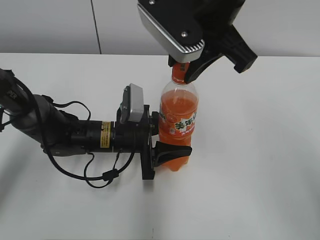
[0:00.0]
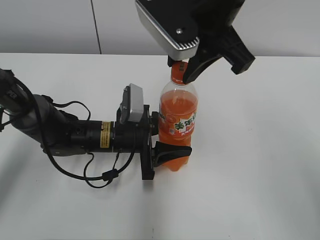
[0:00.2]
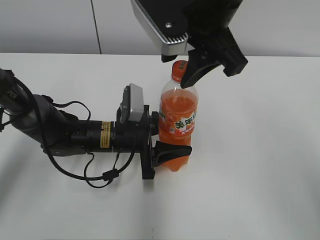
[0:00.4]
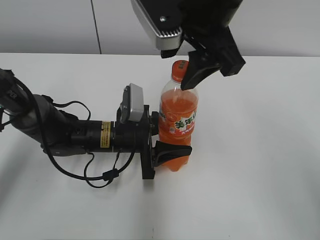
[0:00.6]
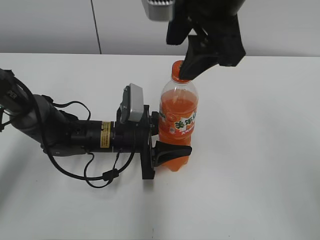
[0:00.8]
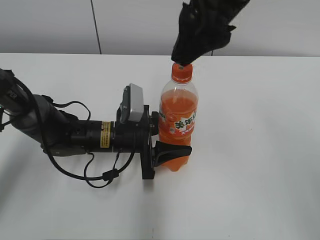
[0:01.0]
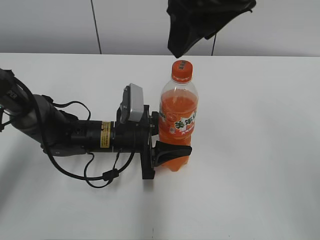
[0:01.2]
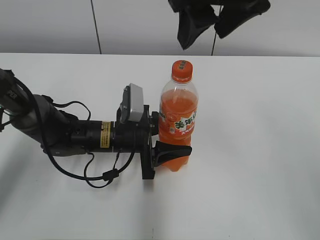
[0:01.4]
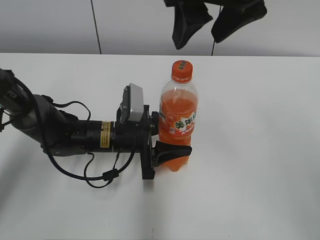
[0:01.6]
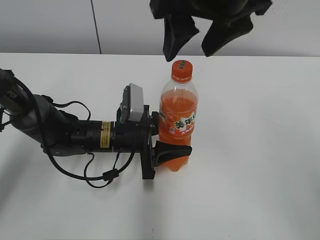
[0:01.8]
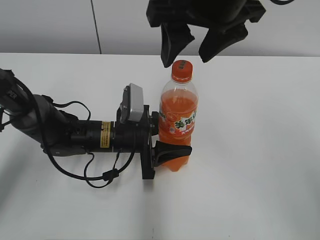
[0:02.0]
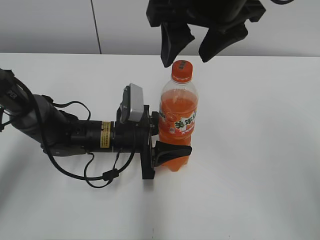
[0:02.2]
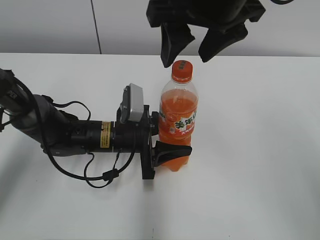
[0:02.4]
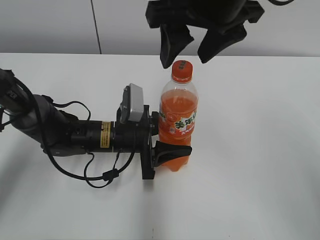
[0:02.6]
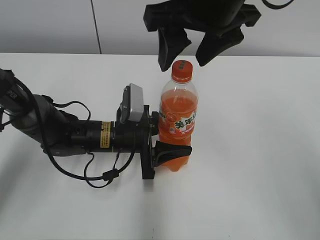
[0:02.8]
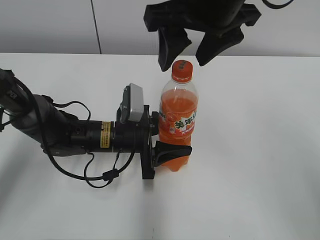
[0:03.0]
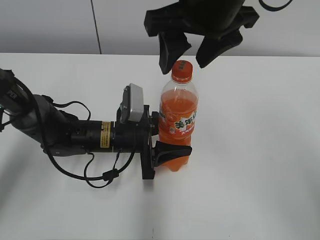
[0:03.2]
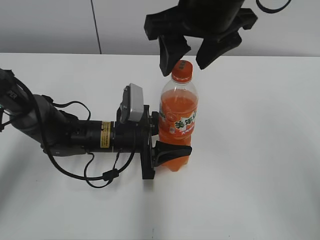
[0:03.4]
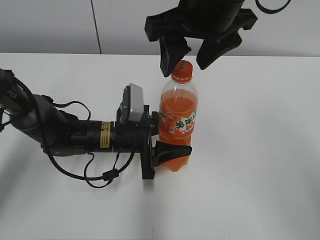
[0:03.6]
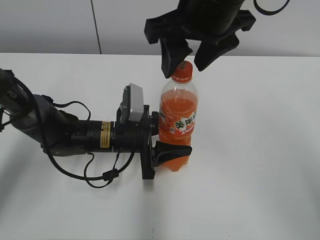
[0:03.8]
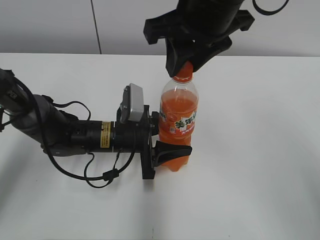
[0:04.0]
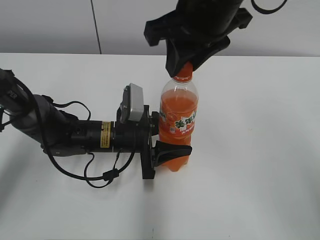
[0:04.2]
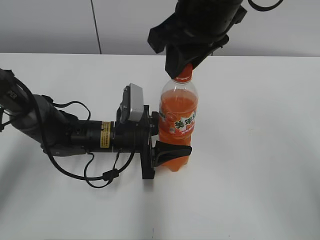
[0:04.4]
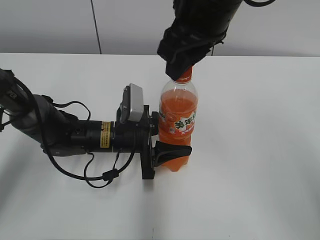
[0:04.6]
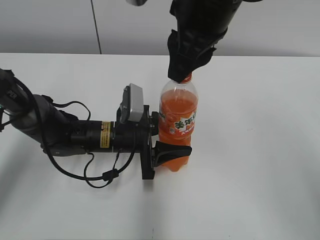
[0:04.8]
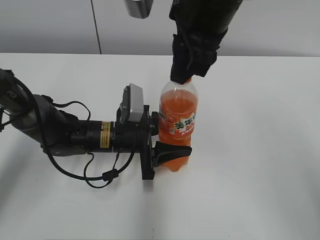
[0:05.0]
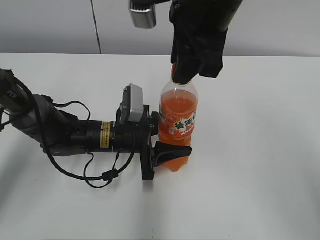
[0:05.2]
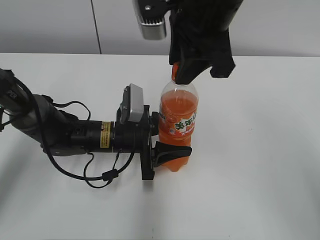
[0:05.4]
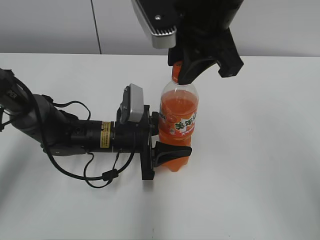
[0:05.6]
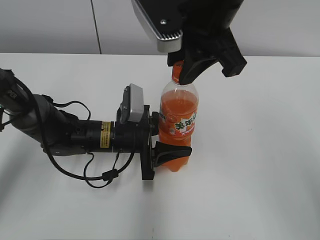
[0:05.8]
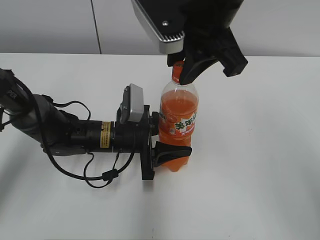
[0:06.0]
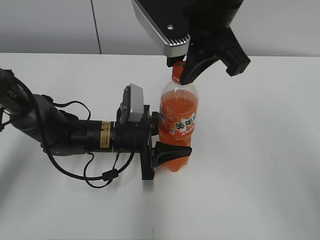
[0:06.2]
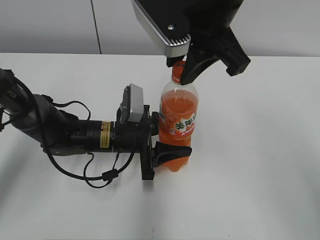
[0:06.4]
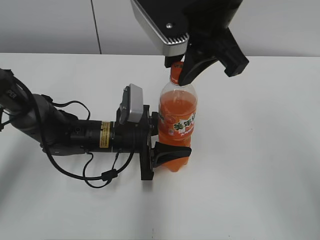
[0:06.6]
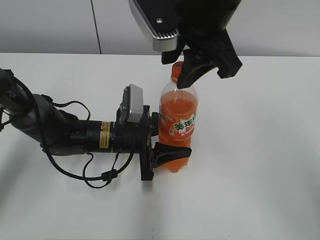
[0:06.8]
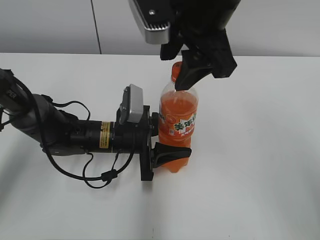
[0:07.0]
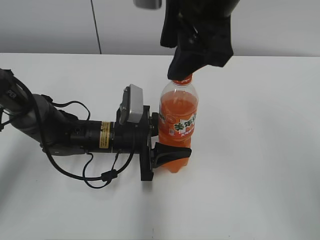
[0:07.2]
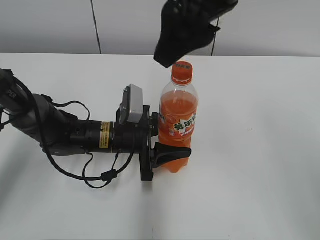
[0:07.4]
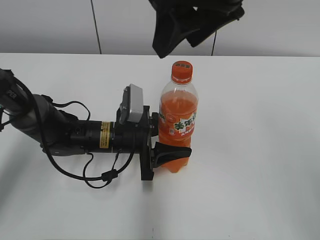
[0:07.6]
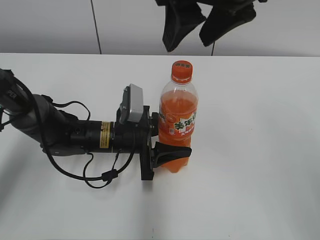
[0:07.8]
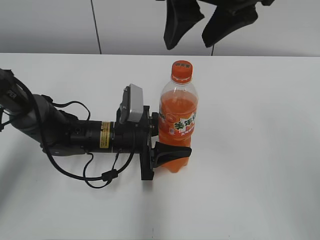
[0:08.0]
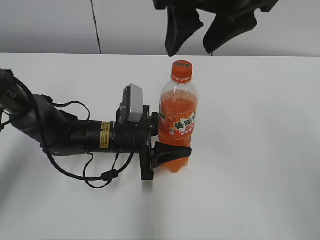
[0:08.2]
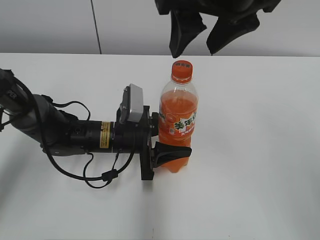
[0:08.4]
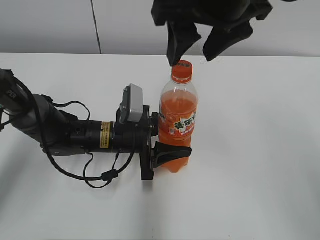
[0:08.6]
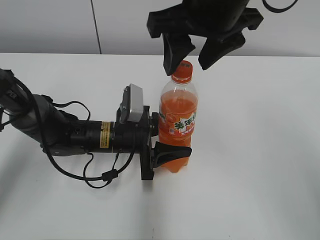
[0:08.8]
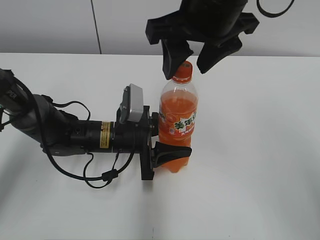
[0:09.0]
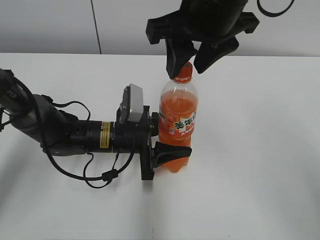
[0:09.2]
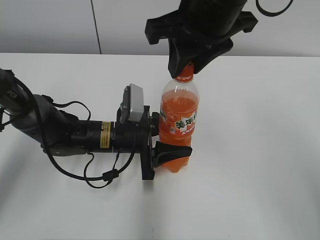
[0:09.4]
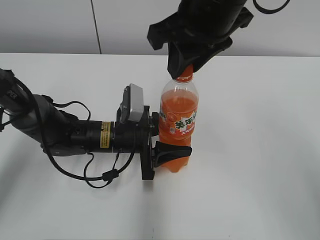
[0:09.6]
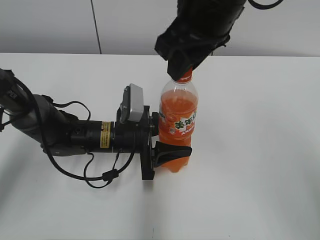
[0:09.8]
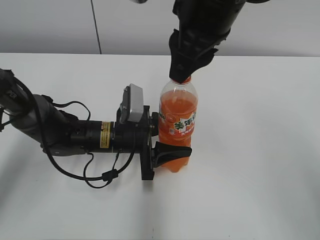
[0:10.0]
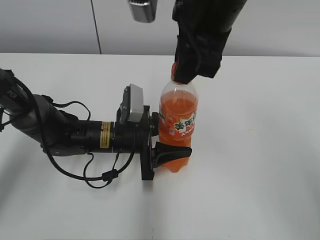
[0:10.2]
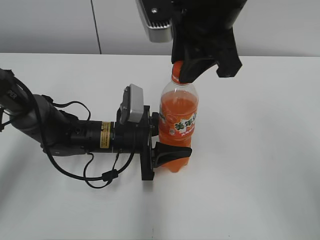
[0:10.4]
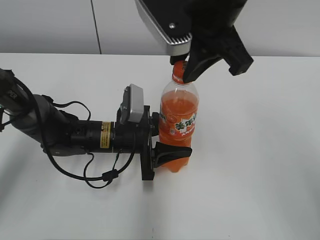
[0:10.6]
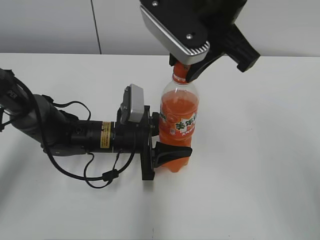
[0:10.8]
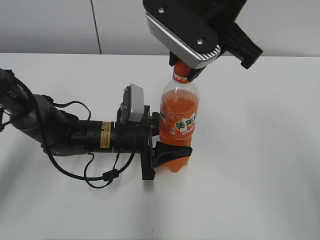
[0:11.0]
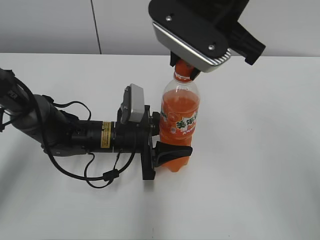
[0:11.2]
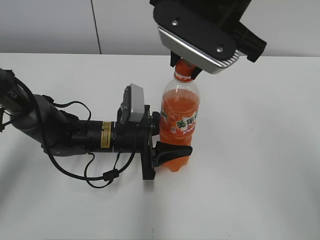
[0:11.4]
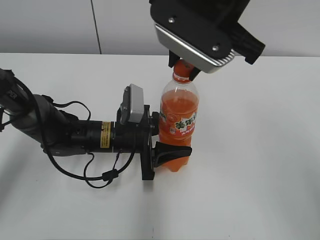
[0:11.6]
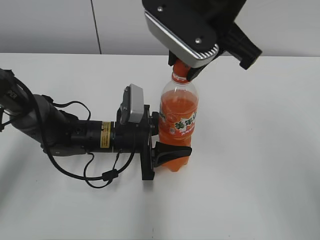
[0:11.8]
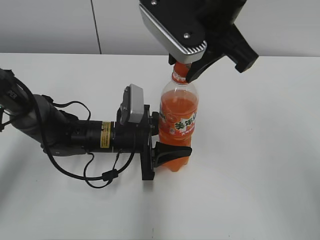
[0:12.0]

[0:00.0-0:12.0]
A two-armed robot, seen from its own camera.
0:00.0 to 0:01.6: The right gripper opens its fingers.
0:01.6 to 0:03.0: The grippers stay close to where they were, moving slightly.
0:03.0 to 0:04.4: The right gripper closes up.
0:06.0 to 0:07.6: The right gripper ends up roughly 5 cm from where it was, and opens its fingers.
0:07.6 to 0:09.0: The right gripper ends up roughly 5 cm from where it was.
0:09.0 to 0:10.4: The right gripper closes.

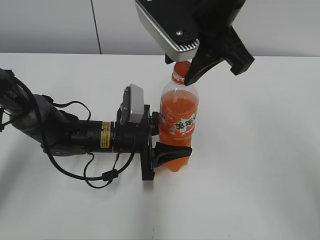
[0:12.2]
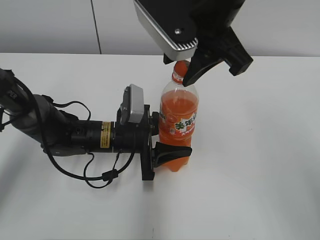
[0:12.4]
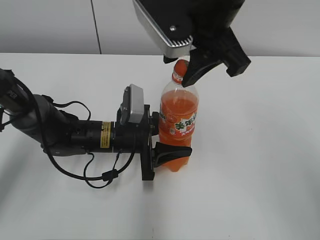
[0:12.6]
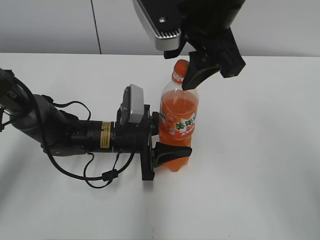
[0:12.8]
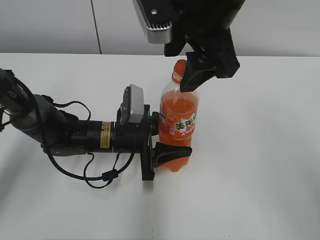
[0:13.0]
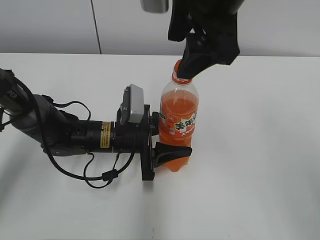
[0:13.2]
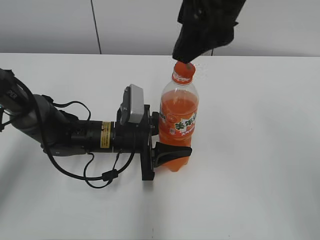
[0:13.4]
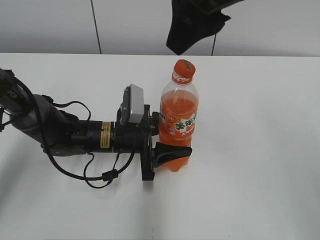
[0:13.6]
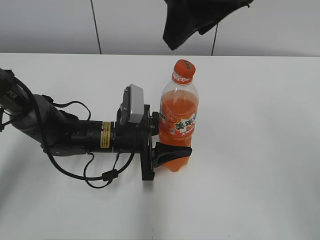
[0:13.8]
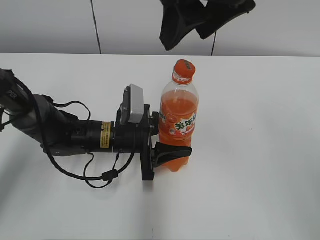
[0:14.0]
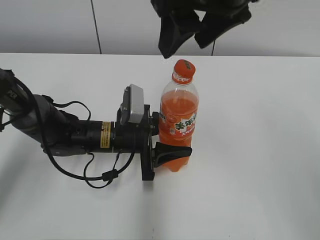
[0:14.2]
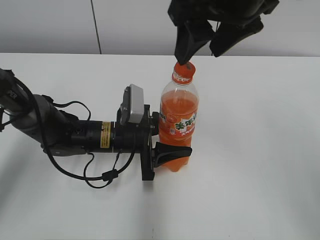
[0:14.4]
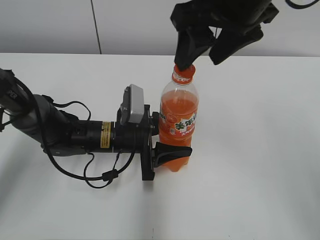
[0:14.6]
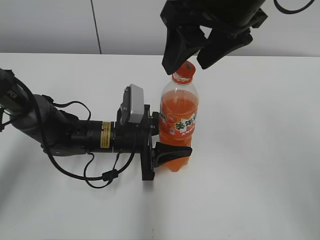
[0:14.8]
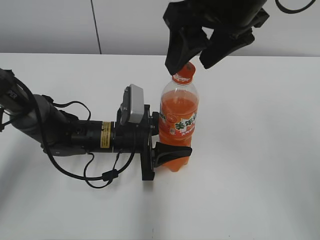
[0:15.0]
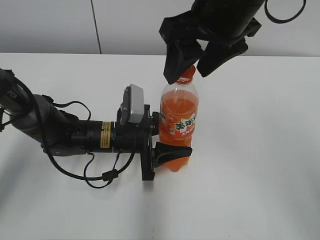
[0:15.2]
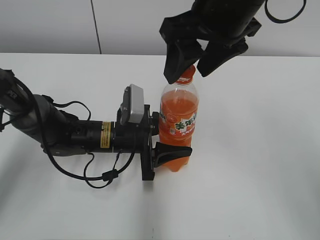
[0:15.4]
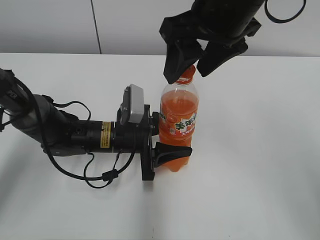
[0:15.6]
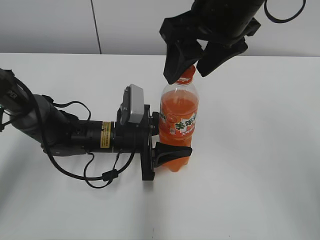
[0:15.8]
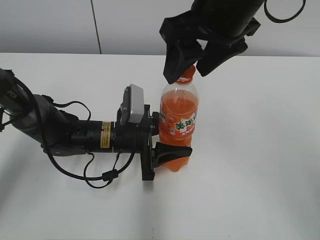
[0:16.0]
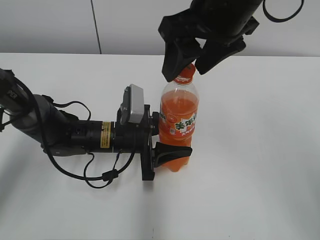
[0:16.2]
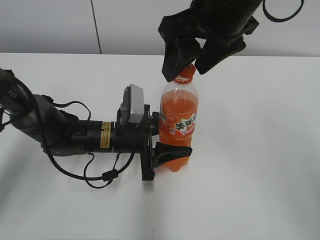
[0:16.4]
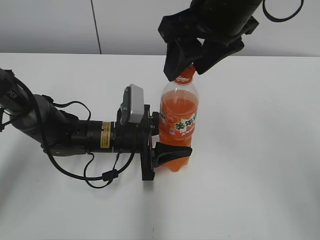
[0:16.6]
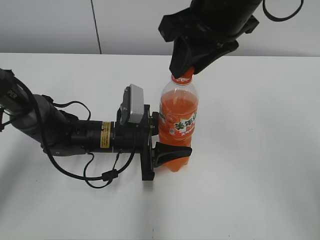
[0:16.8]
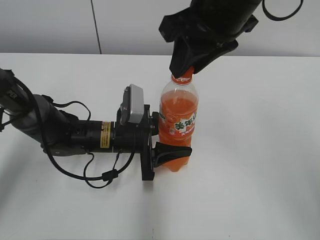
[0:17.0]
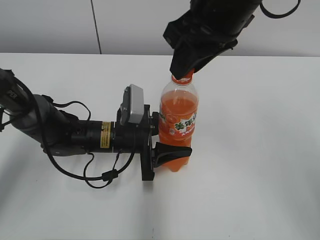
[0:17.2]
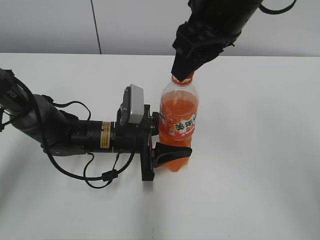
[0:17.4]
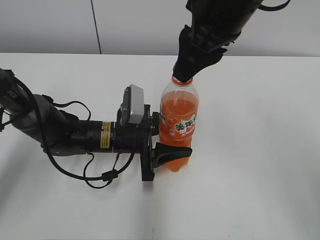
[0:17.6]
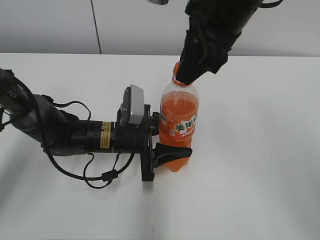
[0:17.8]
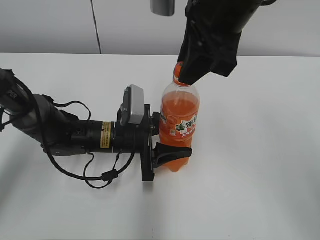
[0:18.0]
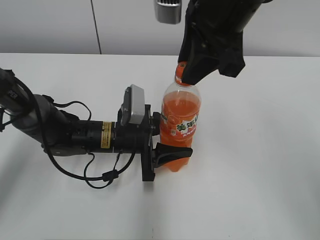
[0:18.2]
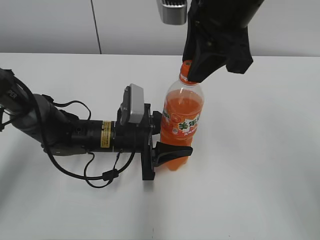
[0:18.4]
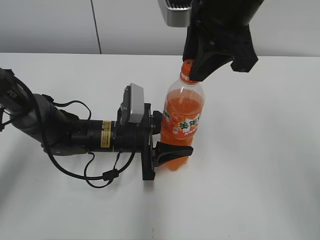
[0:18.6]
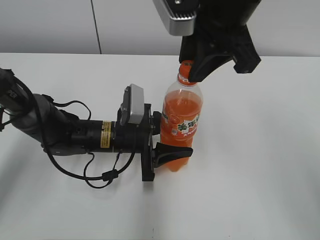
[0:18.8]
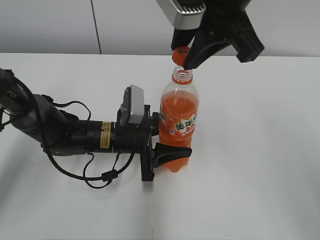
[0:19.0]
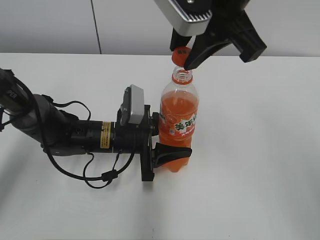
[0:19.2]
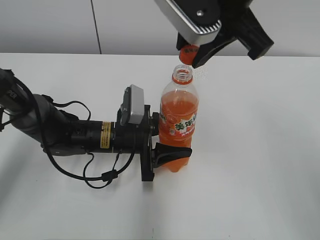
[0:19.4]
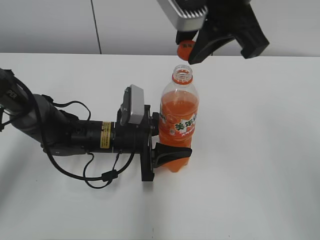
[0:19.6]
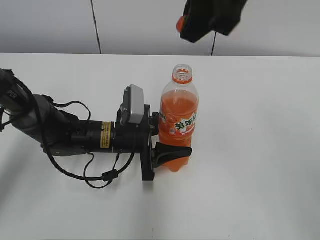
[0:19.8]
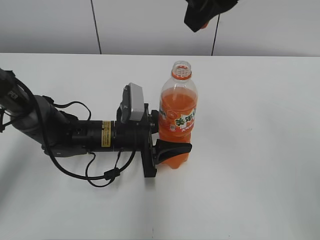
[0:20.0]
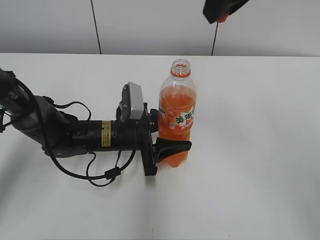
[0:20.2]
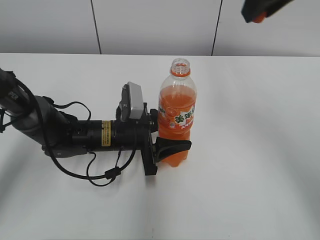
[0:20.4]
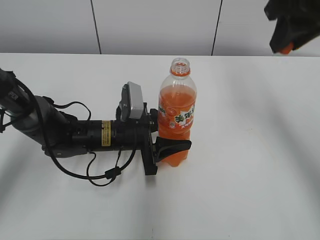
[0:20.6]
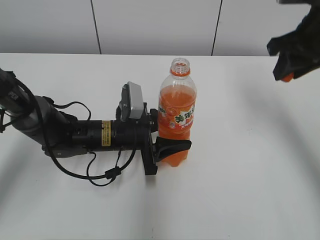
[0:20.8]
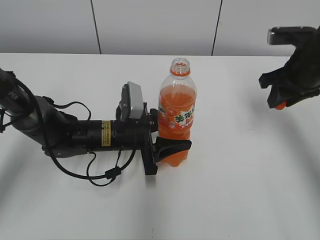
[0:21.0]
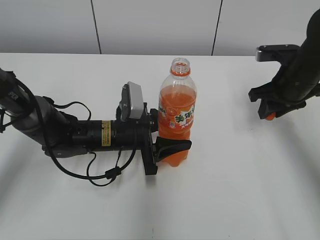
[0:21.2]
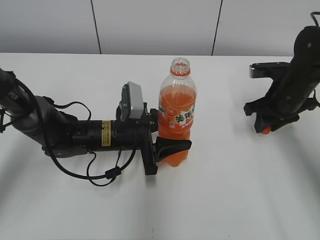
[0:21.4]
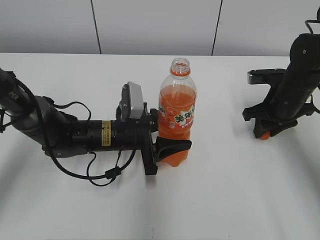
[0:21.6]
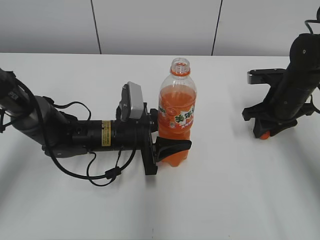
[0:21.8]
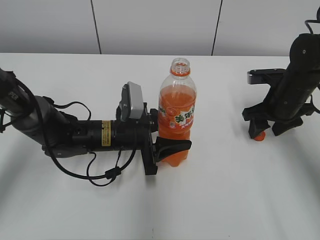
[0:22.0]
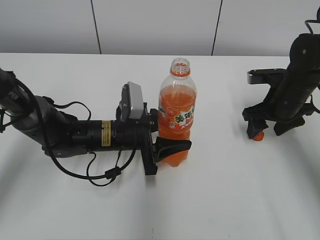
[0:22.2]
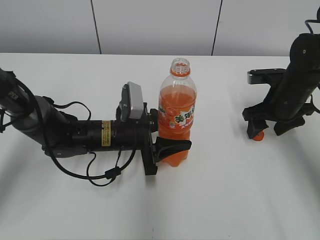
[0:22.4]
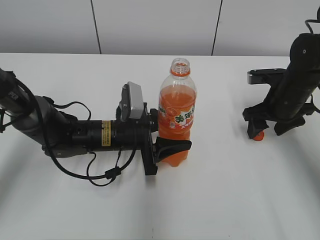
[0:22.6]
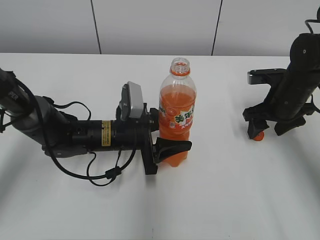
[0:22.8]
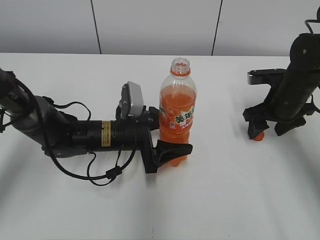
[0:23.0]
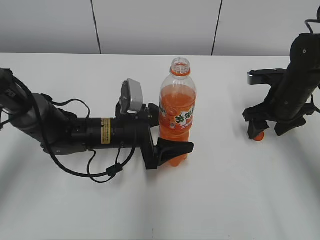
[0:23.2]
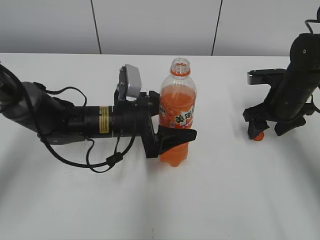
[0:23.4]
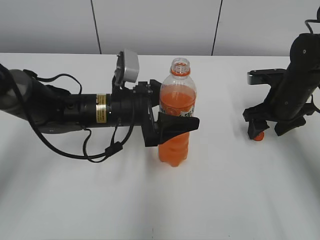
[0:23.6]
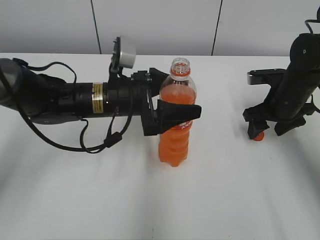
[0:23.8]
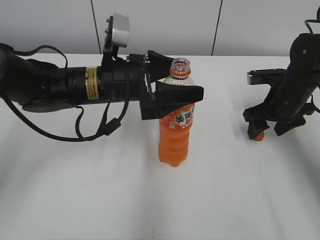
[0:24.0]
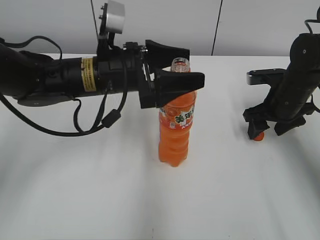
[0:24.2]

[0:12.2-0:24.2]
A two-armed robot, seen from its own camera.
Step, 0:19.4 to 0:22.0: Place the bottle cap on the right.
Step, 0:22.4 to 0:23.0: Place the Mirinda with the left hand.
0:12.2 to 0:13.8: The right gripper goes some 5 cm upward.
0:13.8 to 0:15.2: The right gripper is displaced downward by approximately 5 cm.
0:15.2 to 0:16.6: The two grippers keep their place.
0:16.6 to 0:18.2: The right gripper closes.
0:18.2 to 0:19.8: The right gripper is displaced upward by about 5 cm.
0:19.8 to 0:21.2: The right gripper goes about 30 cm downward, to the right and forward.
0:21.2 to 0:22.6: The right gripper moves downward, about 5 cm, and opens its fingers.
0:22.6 to 0:24.2: The left gripper heads upward, covering approximately 15 cm, and opens up.
